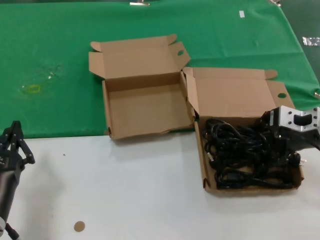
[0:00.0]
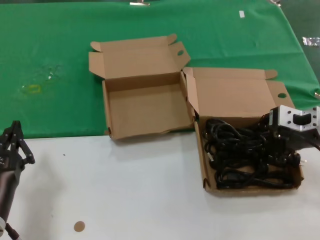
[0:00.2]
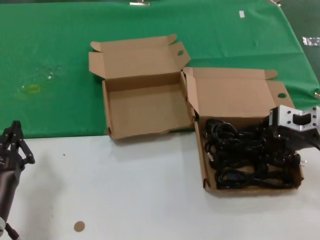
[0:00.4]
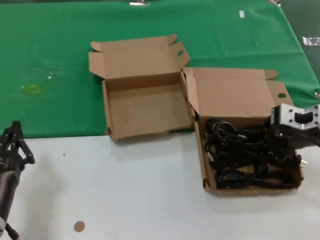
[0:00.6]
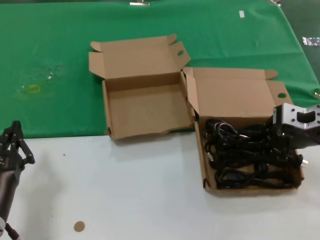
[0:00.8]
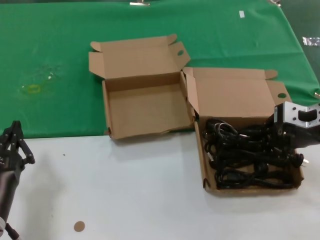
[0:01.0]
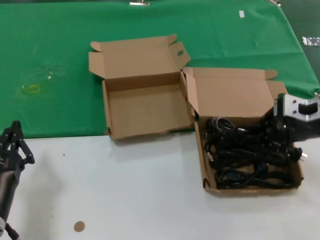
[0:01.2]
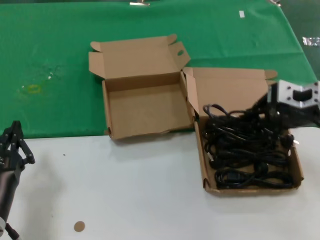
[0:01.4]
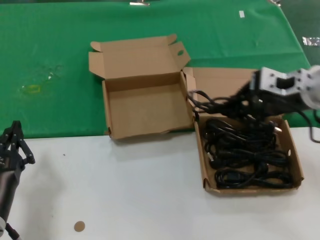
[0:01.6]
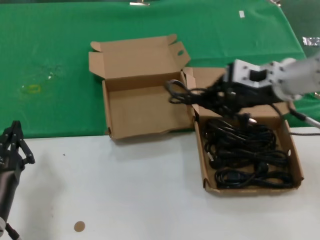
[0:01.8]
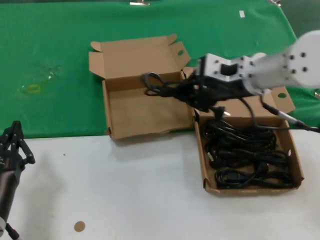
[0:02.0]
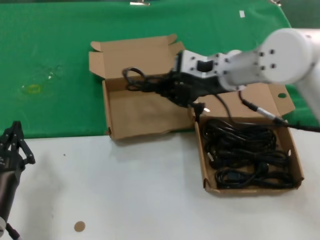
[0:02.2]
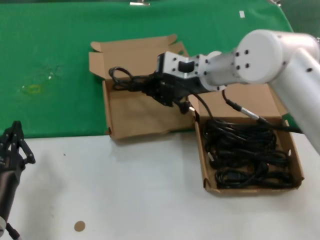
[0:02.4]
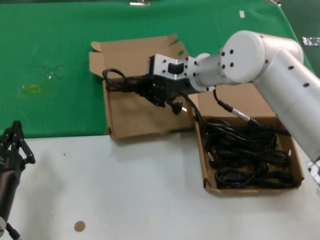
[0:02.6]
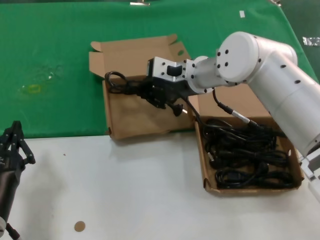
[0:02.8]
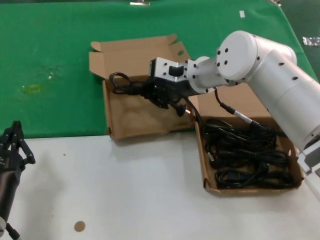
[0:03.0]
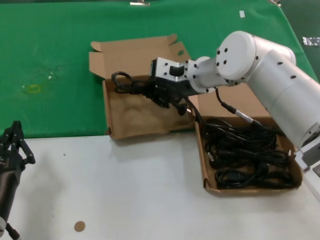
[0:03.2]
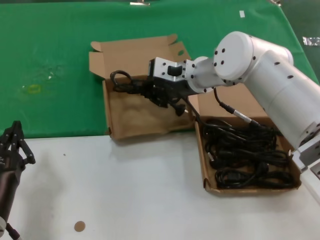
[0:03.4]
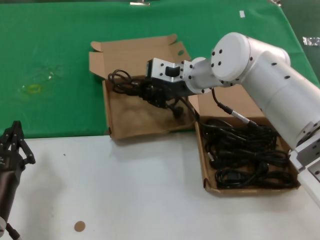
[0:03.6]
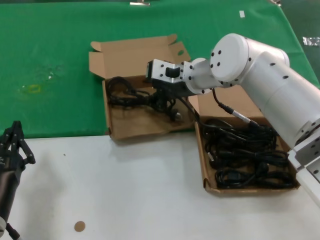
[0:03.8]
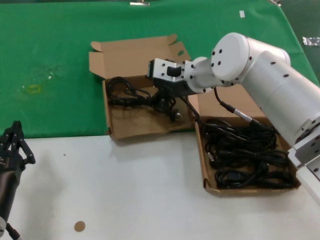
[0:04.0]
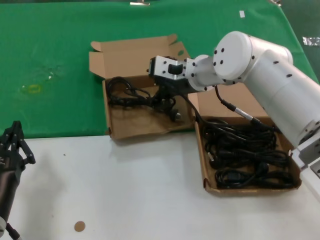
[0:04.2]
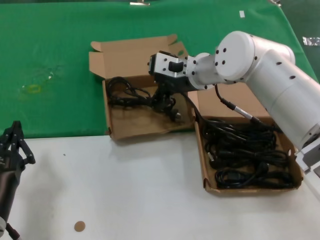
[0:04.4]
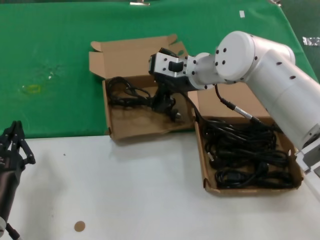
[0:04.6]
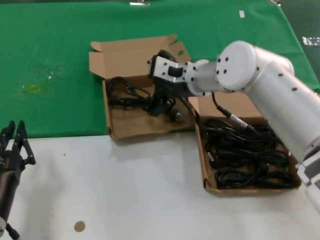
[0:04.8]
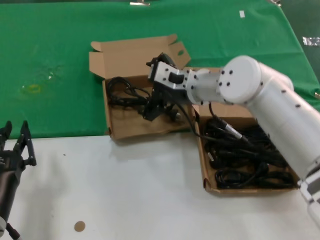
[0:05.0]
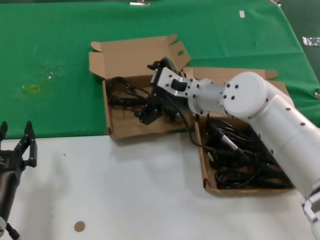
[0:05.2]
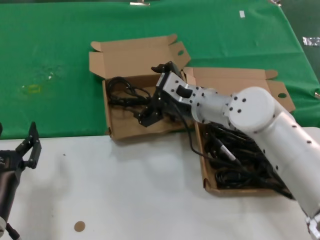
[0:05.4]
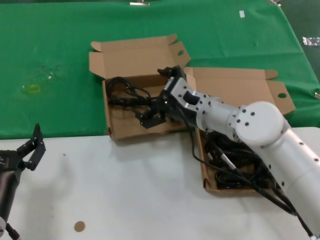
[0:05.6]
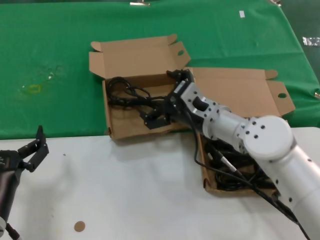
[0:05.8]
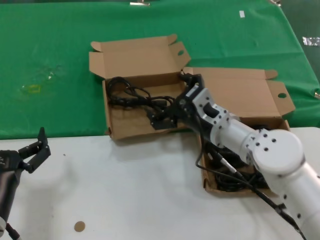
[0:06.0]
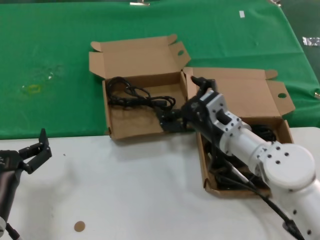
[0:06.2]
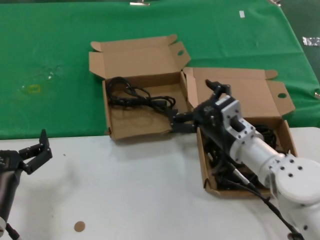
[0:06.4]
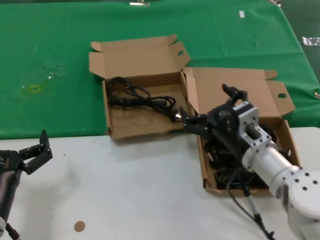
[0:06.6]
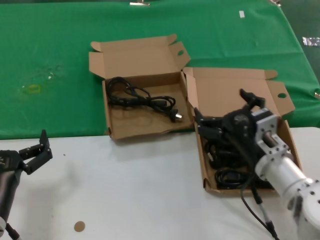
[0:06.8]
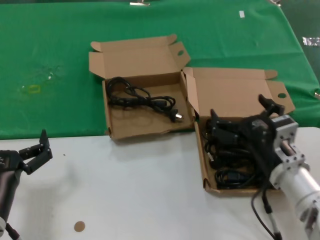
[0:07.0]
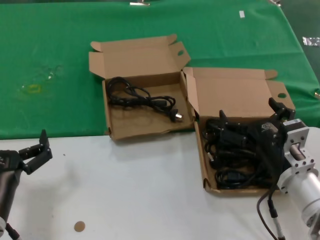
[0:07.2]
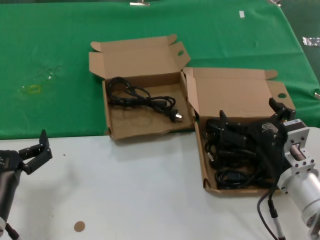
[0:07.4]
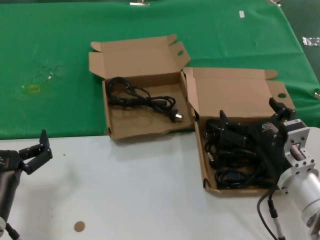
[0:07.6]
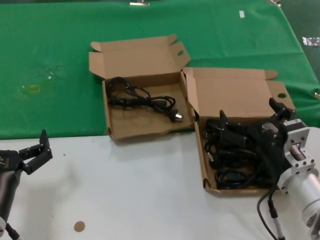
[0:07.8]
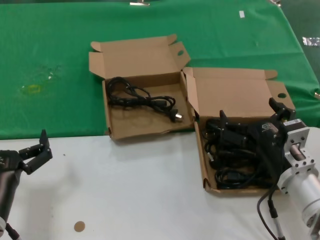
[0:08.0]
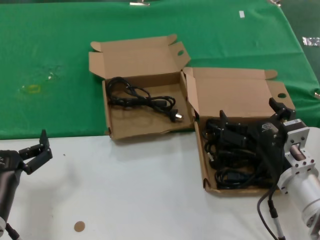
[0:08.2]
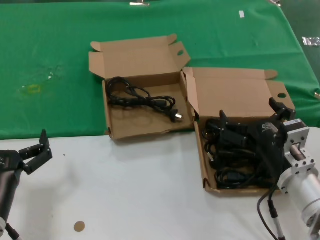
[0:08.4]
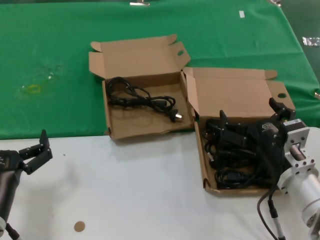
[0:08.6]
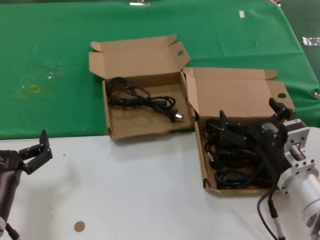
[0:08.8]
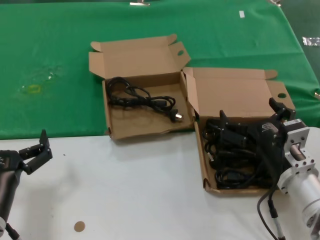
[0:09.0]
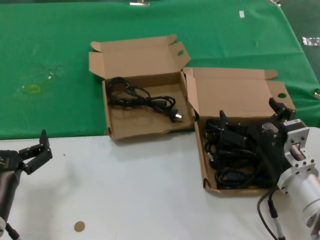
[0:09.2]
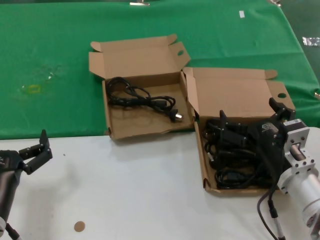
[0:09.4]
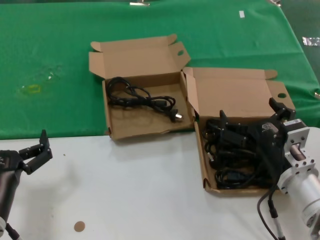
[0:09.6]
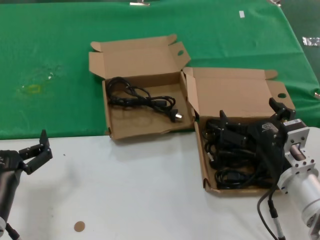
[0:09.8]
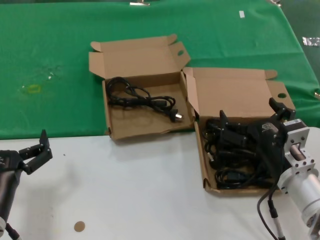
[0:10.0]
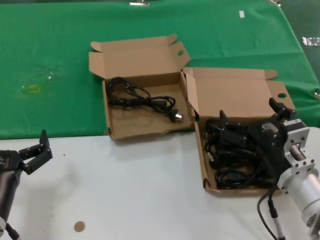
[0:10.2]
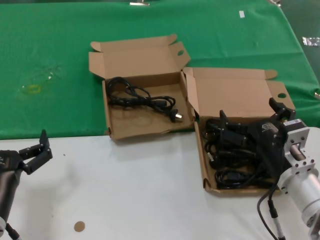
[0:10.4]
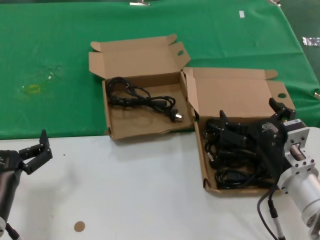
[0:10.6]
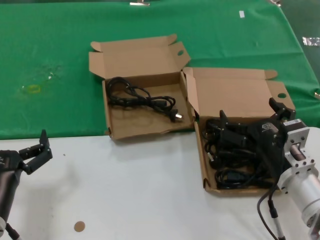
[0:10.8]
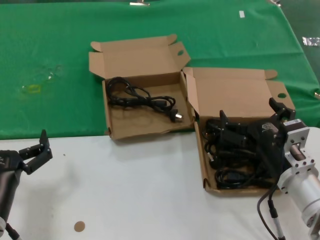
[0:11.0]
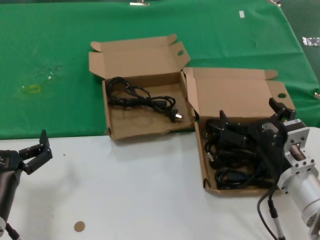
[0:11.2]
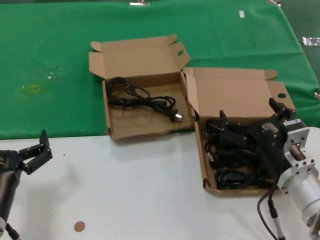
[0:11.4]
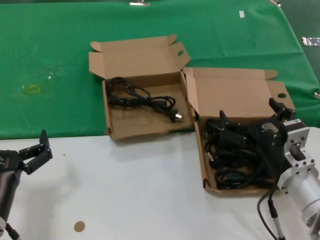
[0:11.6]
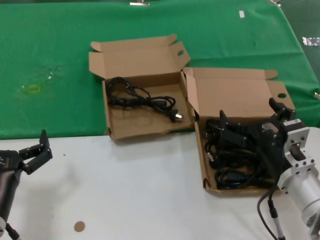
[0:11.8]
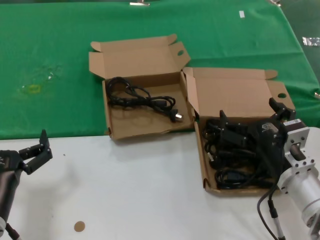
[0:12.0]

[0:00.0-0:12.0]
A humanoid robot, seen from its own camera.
Task of the whole recording: take the parts from the box containing them and put them into an empty box.
Step, 0:00.6 to 0:03.8: Place the data cable in the another box.
0:00.0 to 0:01.6: The right hand is displaced upward by some 5 cm.
0:01.6 to 0:03.0: The right hand is displaced to the left and forward by some 20 cm.
0:03.0 to 0:04.4: Neither hand changes place.
0:04.4 to 0:06.0: The right hand moves downward and backward, roughly 15 cm.
0:06.0 to 0:07.6: The right hand moves backward and to the right, roughly 15 cm.
0:07.6 to 0:12.0: Both hands stay about where they are.

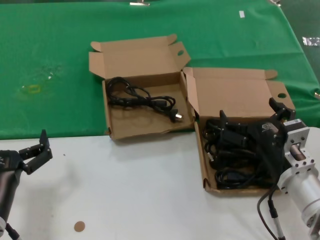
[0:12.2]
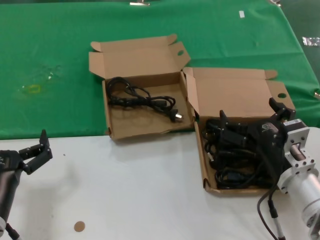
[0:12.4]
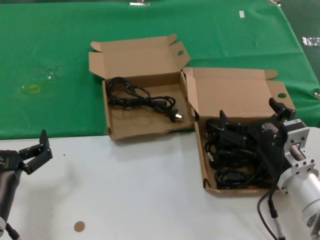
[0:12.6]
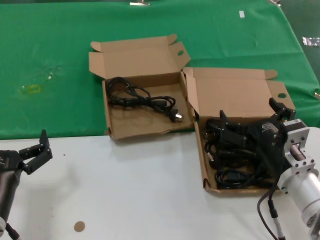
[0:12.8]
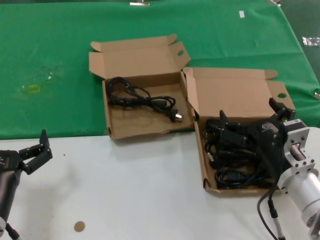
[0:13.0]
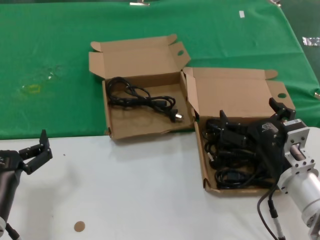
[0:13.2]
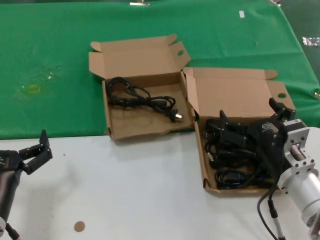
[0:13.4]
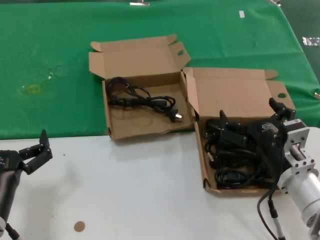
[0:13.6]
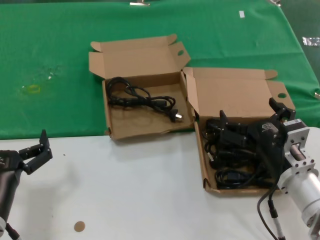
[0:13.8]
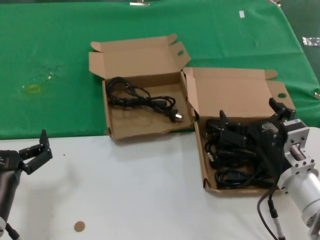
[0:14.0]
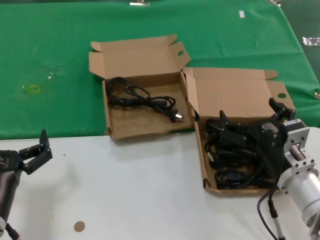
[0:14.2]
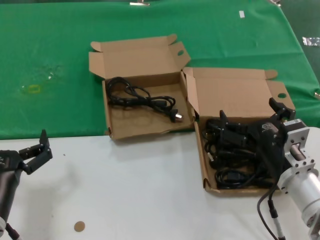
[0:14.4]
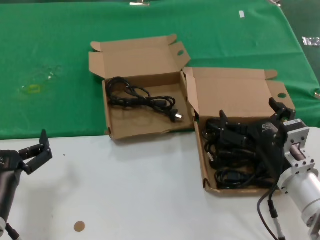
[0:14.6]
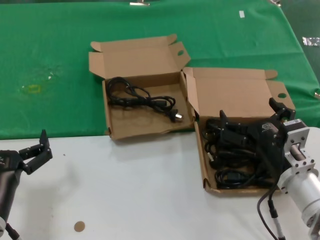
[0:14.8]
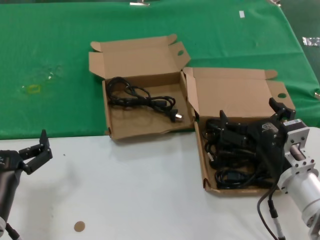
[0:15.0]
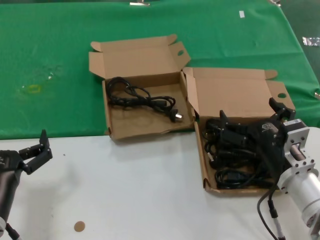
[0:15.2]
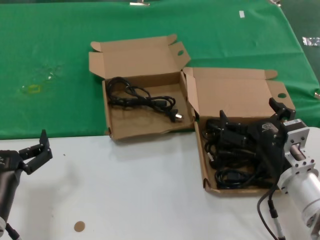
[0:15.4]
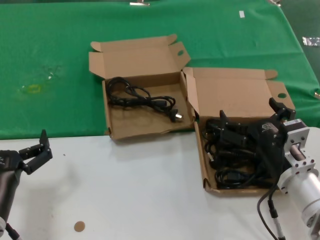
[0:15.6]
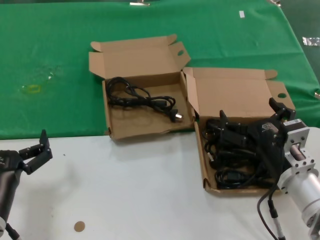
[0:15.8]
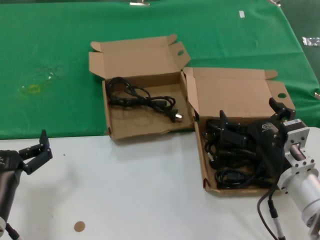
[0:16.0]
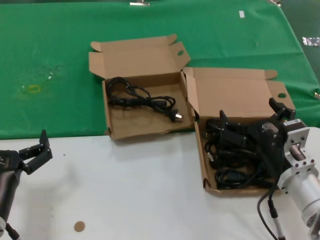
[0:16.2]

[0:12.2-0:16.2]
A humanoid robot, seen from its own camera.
Task of the whole recording: take the parts from the box containing them and put them into an empty box.
0:12.2 to 0:16.2: The two hands keep their place.

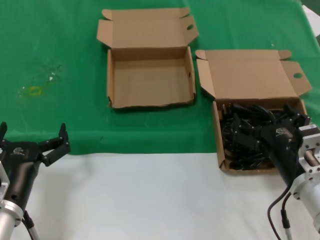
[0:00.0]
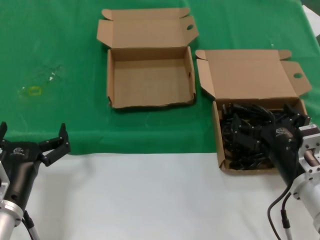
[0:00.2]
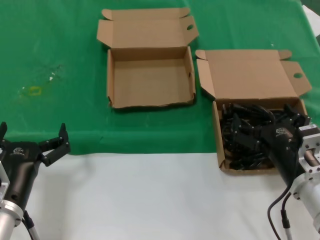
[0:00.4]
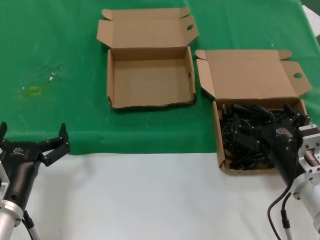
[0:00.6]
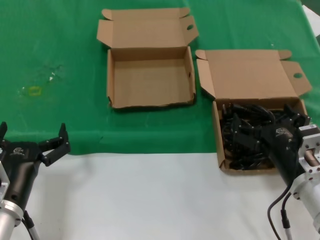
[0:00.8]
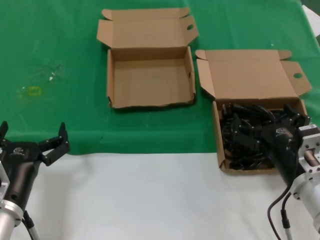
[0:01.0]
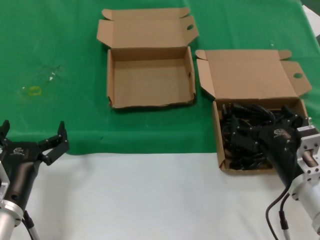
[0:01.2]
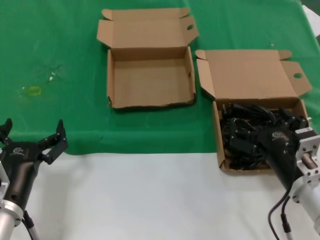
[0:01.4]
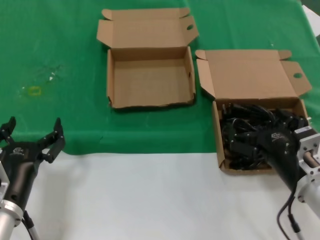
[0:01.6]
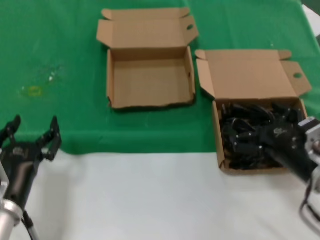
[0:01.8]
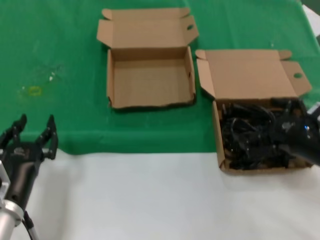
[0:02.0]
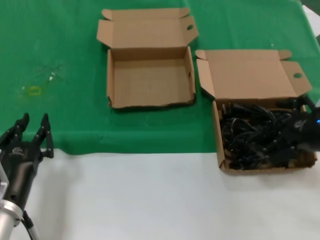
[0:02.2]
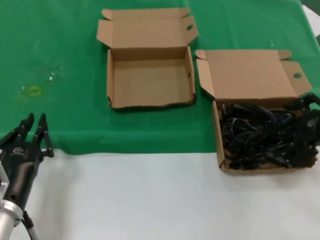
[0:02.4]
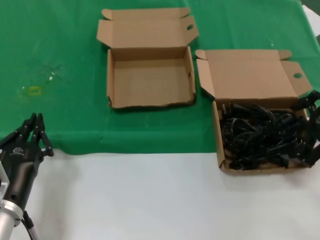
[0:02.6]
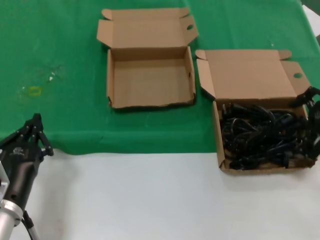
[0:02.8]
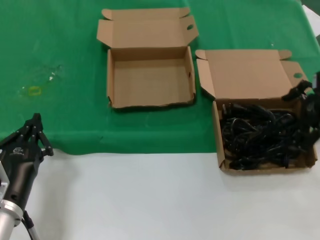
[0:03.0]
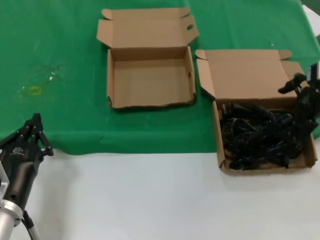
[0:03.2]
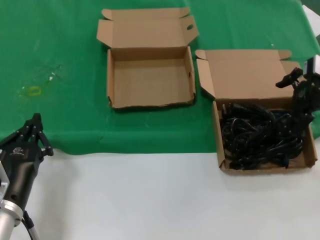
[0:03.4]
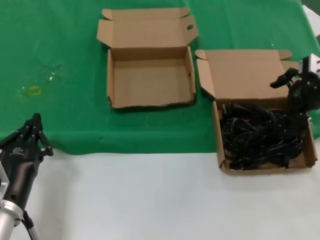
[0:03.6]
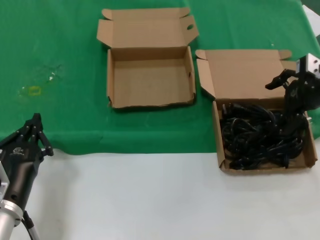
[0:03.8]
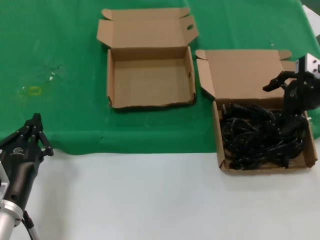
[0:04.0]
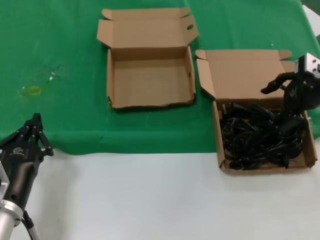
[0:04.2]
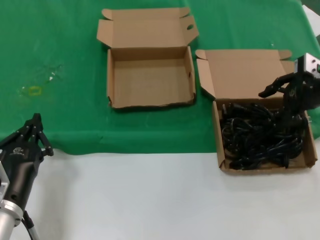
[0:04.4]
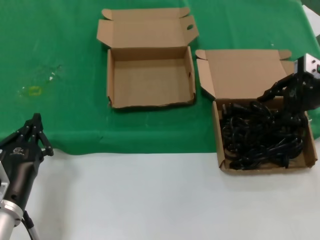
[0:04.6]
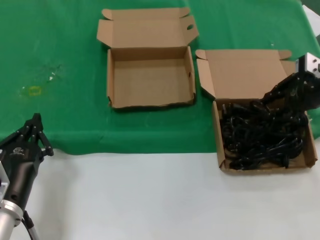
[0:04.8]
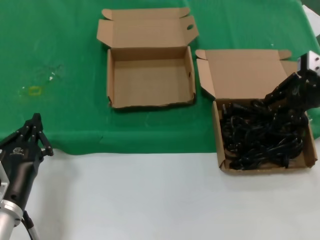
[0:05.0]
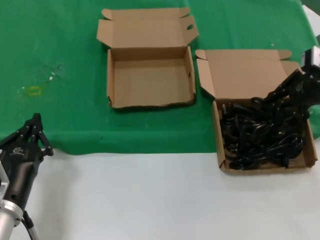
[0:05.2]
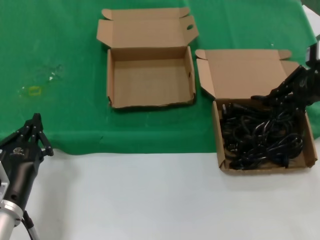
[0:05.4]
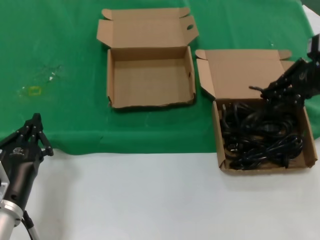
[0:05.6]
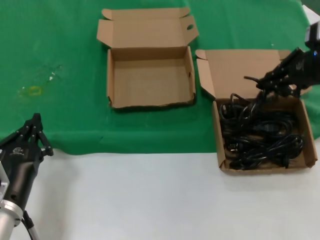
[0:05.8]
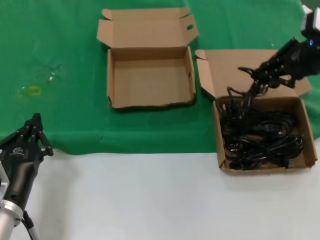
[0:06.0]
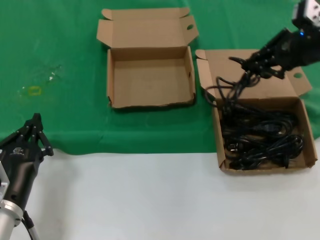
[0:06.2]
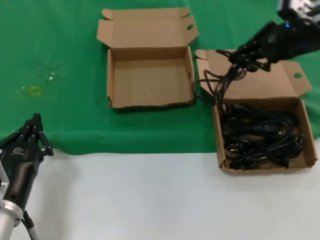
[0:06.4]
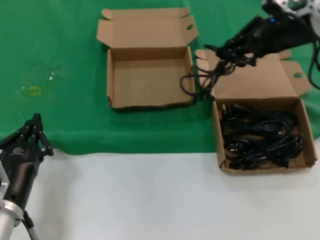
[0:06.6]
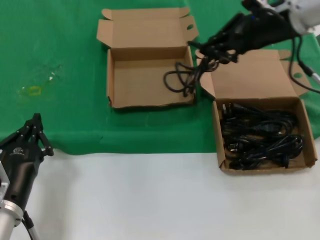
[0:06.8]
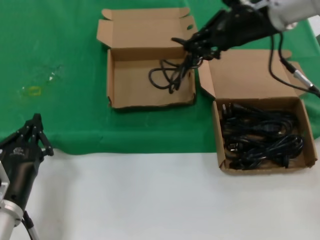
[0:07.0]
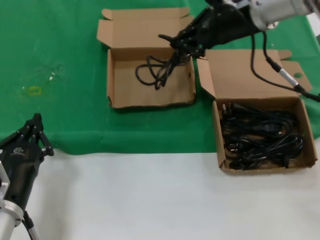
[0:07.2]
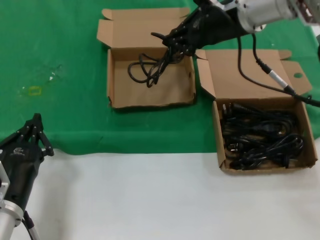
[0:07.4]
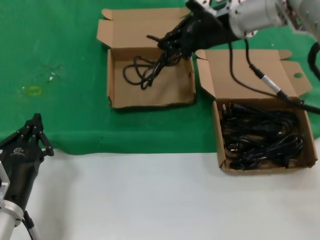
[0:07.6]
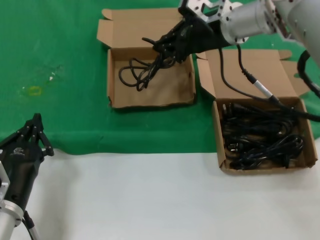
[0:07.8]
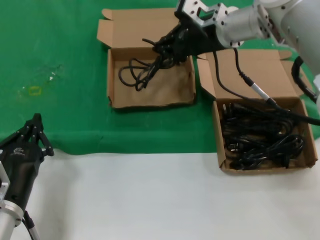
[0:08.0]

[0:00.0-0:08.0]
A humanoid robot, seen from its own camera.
Task of the whole recording: take the parts from the box containing them and put them into an empty box.
Step, 0:00.0 to 0:05.0: Grasp the data cable.
0:00.0 to 0:01.6: The hands make only small movements.
0:01.6 to 0:03.2: The right hand goes some 30 cm upward, forward and to the right.
0:03.2 to 0:04.8: The hands move only a little.
0:04.8 to 0:06.4: The right hand travels upward and to the left by approximately 10 cm.
0:06.4 to 0:08.0: The right hand travels to the left and forward by approximately 20 cm.
